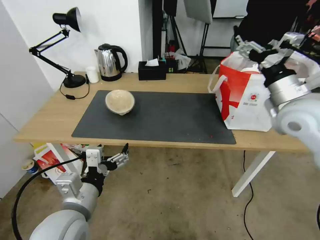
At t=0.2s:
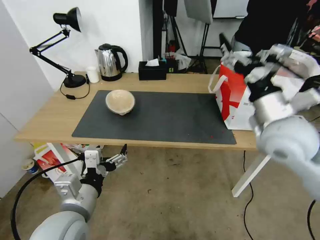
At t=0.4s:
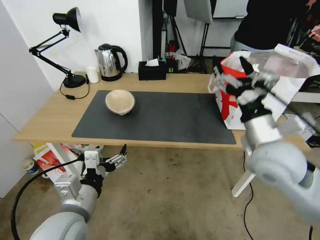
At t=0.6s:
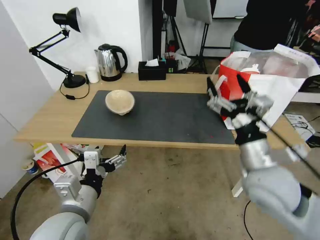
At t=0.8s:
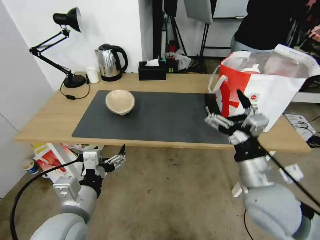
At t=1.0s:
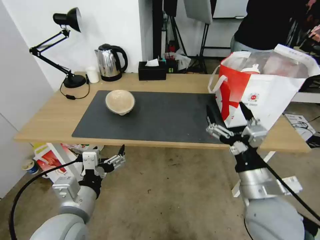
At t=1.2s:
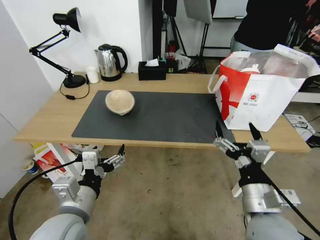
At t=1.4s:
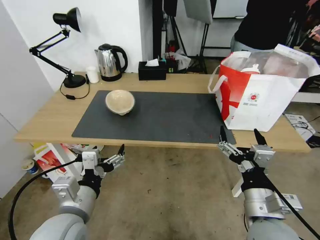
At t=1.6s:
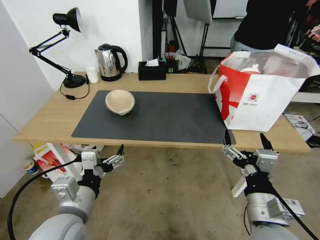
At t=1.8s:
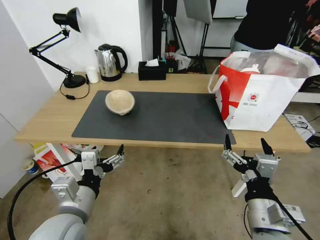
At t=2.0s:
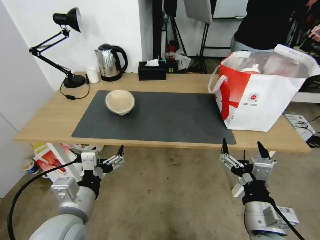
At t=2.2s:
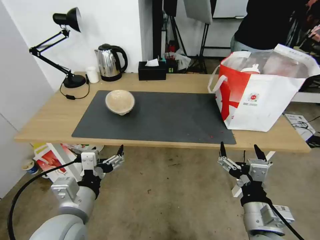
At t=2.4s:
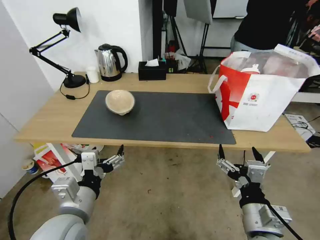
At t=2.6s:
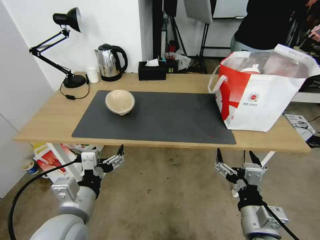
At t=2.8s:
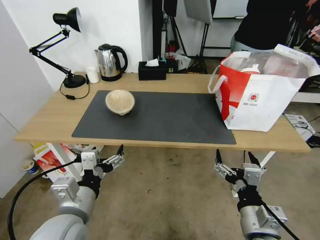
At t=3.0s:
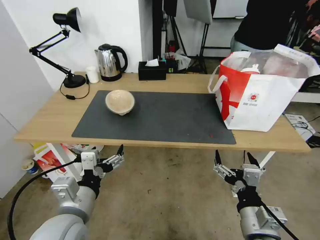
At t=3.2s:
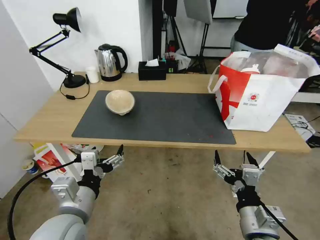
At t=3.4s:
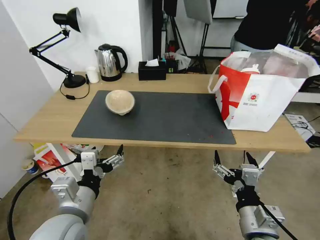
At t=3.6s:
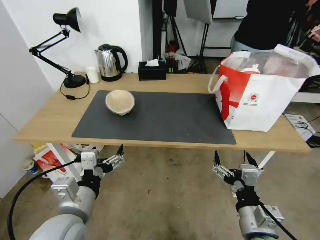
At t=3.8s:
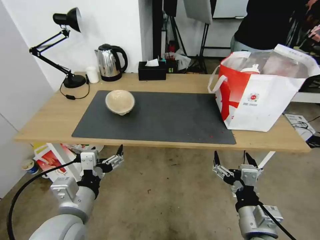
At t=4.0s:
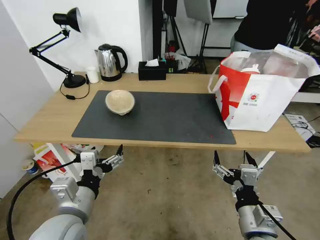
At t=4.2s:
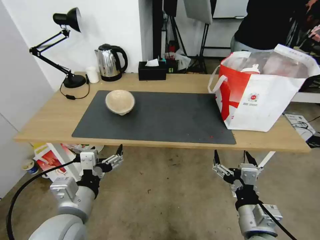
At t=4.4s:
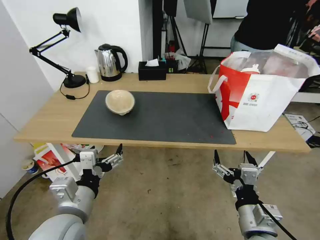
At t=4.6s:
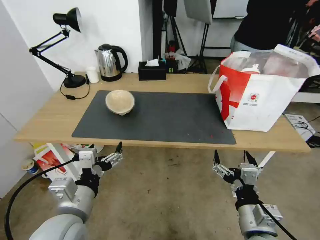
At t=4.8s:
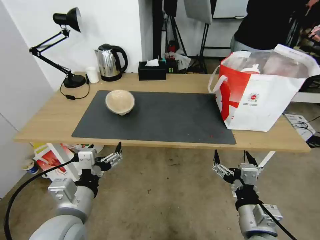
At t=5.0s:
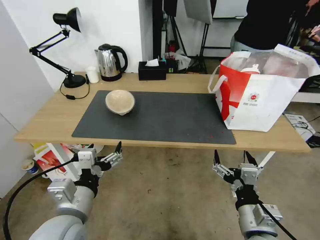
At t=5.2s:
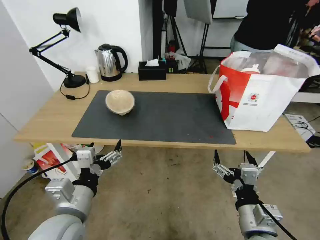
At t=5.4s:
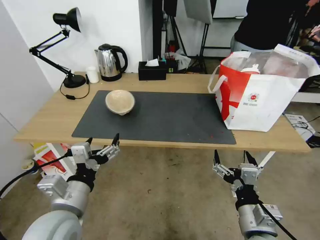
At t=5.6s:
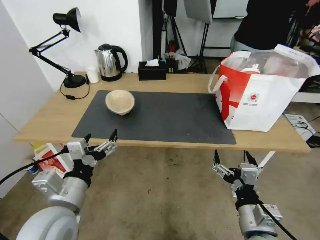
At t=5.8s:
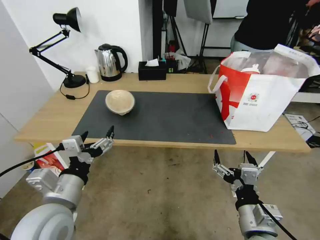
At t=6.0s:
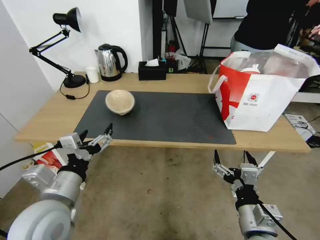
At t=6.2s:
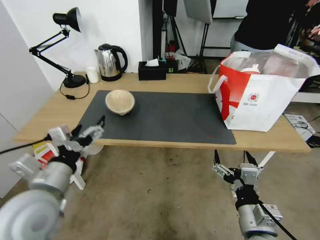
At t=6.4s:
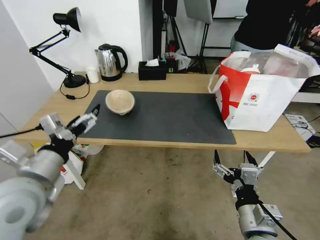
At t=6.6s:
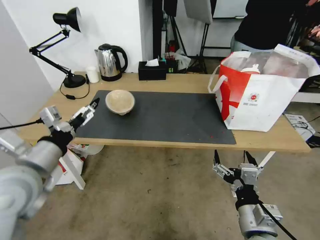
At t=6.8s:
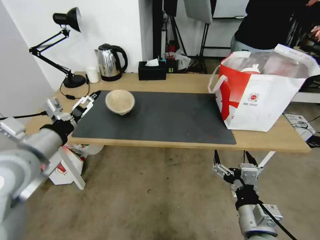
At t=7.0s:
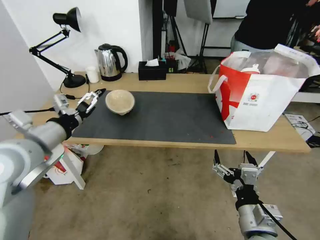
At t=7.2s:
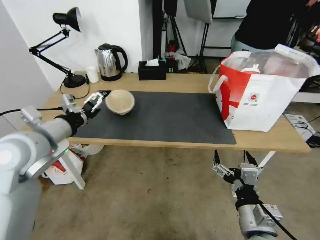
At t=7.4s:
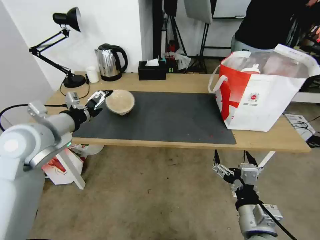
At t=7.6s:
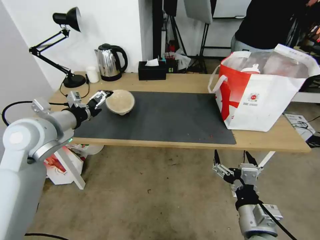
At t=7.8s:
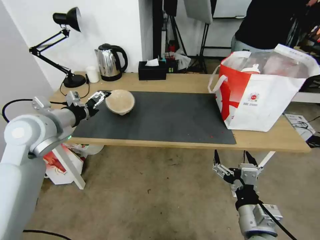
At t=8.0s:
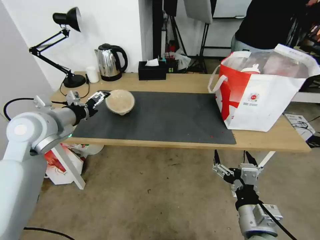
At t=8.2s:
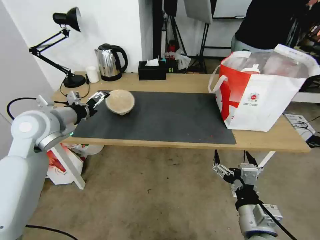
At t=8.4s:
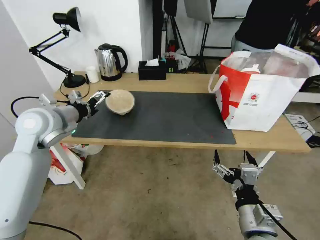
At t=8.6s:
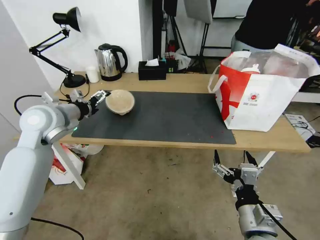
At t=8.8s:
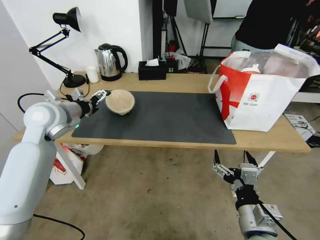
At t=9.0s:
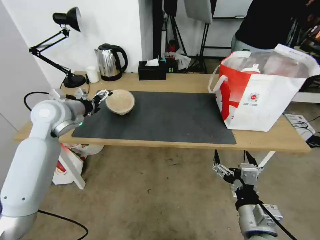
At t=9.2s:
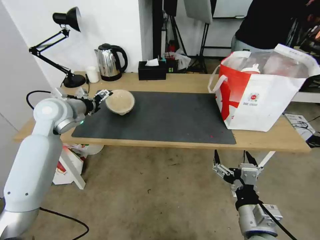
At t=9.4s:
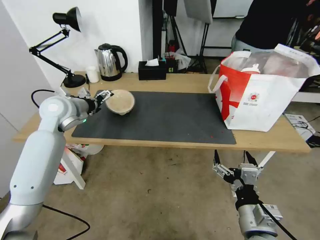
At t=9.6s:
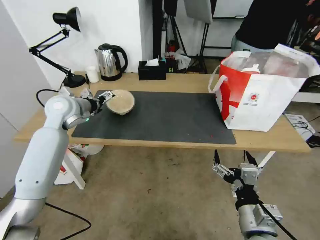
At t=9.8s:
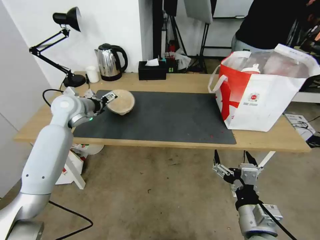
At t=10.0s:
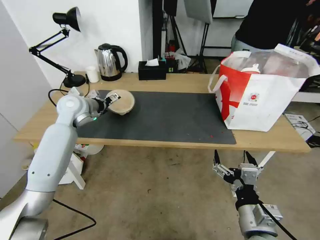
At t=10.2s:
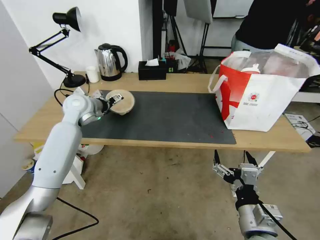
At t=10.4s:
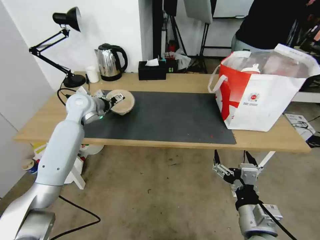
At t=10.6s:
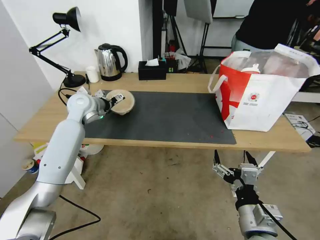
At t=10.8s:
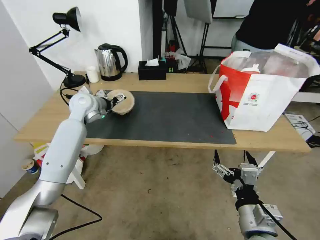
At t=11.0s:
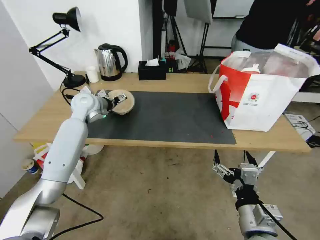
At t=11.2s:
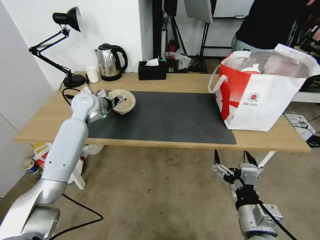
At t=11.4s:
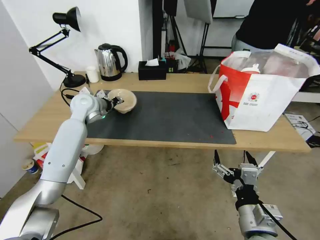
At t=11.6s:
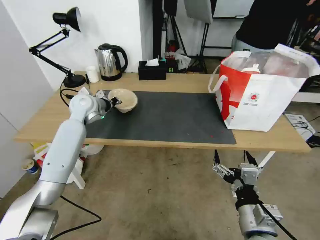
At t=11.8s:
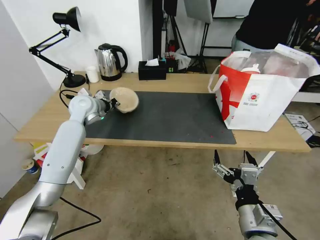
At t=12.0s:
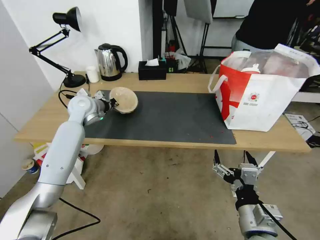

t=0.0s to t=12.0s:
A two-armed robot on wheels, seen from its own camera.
Task of the whole recording: Pick up the trash from the table and place it into the takeout bag.
t=0.0s to t=1.6s: The right gripper moves backward, downward and to the left, roughly 30 cm.
t=1.6s to t=3.0s: The grippers make only small movements.
t=3.0s to t=4.4s: The two grippers keep their place.
t=4.4s to t=6.0s: There are only small adjustments of the grippers.
t=6.0s to t=7.6s: The left gripper is displaced forward, upward and to the left by approximately 20 cm.
t=7.6s to t=9.0s: The left gripper is displaced forward by approximately 10 cm.
t=9.0s to t=10.4s: The left gripper is displaced forward by about 10 cm.
t=10.4s to t=12.0s: The left gripper closes.

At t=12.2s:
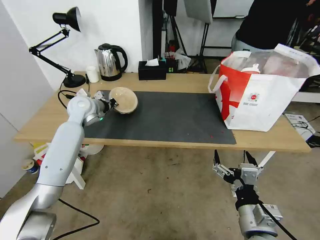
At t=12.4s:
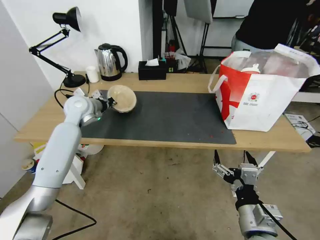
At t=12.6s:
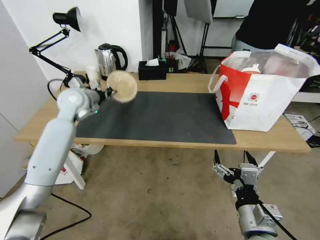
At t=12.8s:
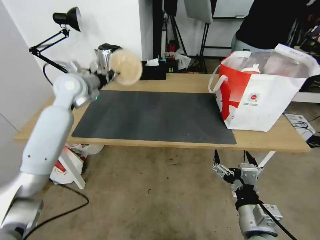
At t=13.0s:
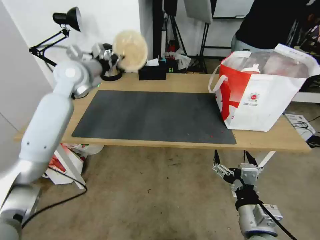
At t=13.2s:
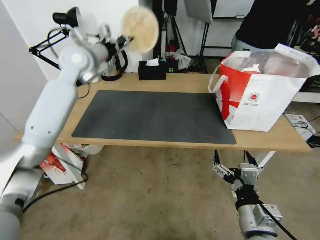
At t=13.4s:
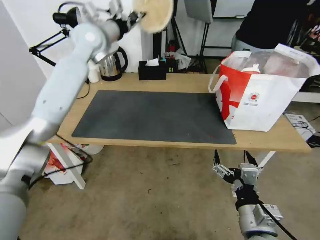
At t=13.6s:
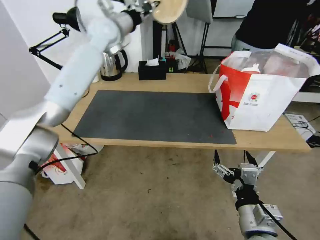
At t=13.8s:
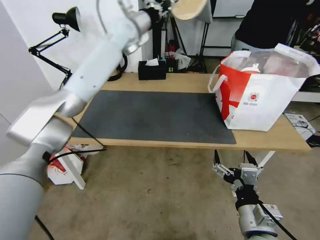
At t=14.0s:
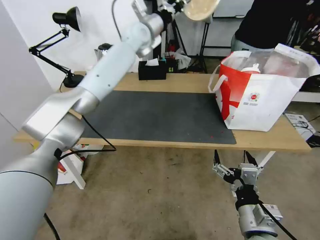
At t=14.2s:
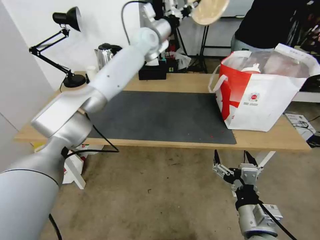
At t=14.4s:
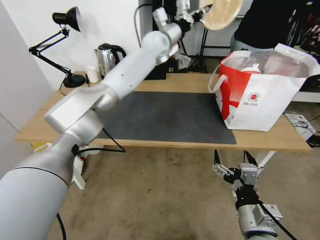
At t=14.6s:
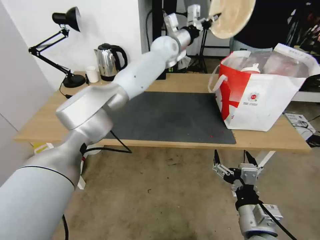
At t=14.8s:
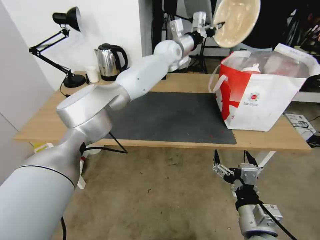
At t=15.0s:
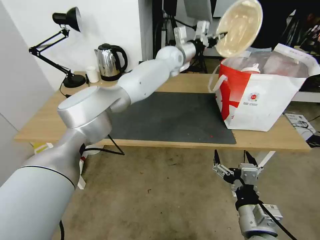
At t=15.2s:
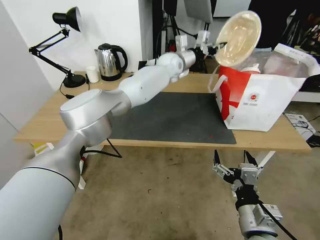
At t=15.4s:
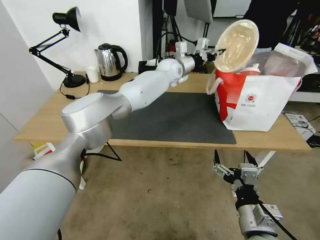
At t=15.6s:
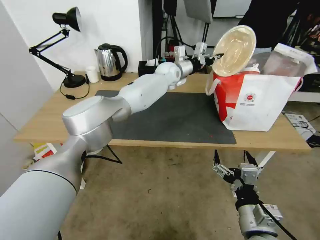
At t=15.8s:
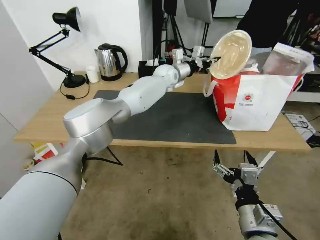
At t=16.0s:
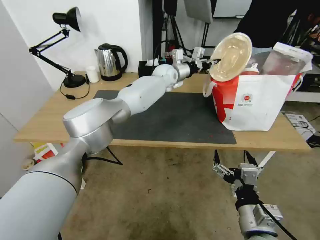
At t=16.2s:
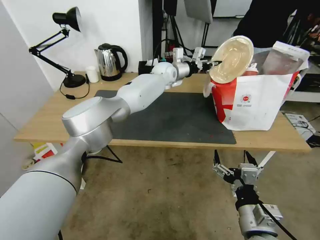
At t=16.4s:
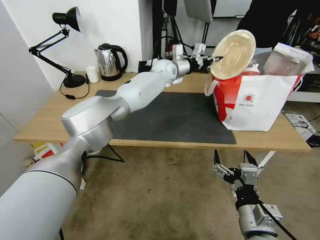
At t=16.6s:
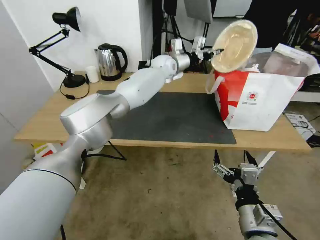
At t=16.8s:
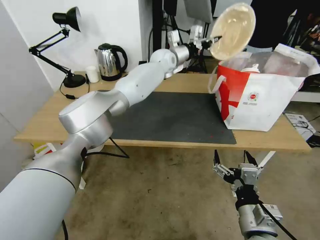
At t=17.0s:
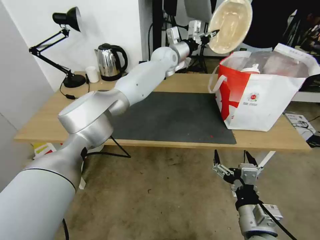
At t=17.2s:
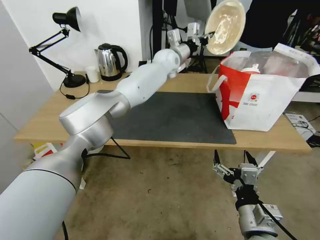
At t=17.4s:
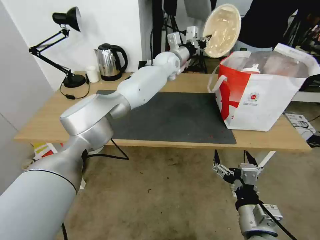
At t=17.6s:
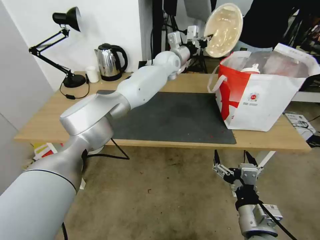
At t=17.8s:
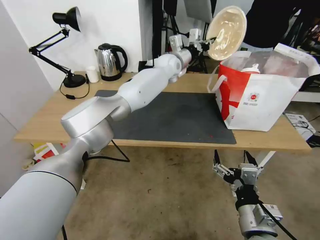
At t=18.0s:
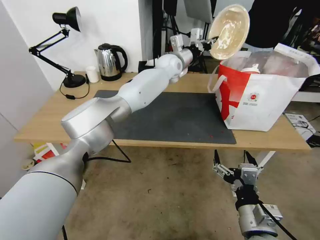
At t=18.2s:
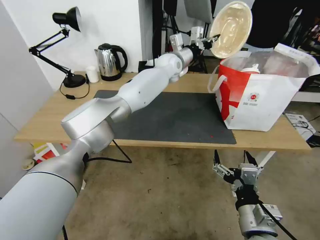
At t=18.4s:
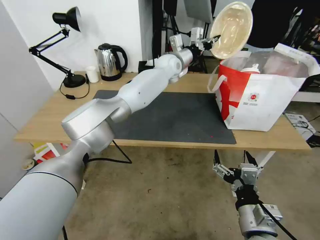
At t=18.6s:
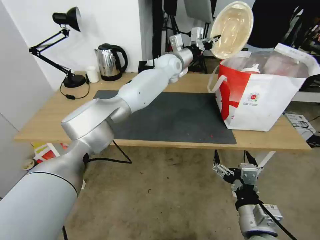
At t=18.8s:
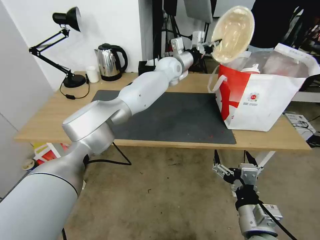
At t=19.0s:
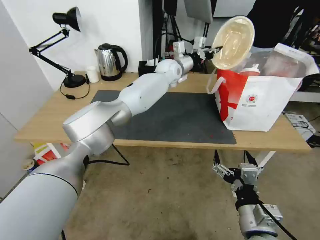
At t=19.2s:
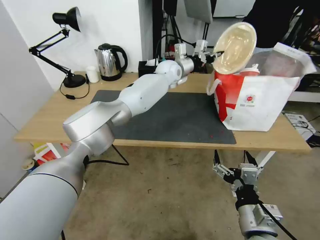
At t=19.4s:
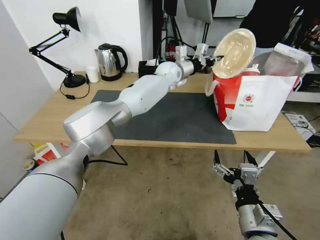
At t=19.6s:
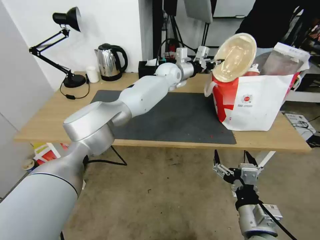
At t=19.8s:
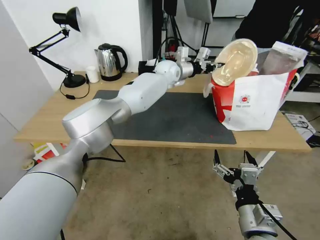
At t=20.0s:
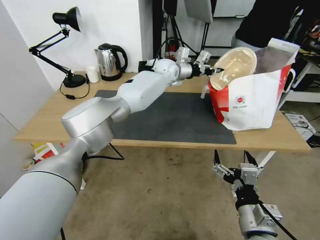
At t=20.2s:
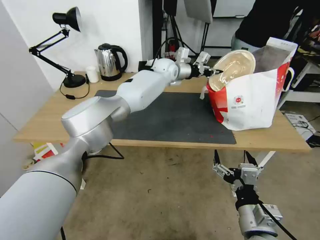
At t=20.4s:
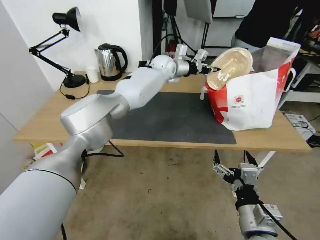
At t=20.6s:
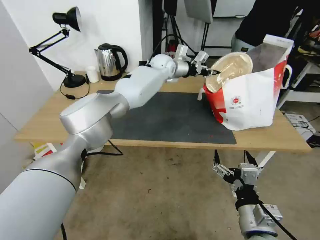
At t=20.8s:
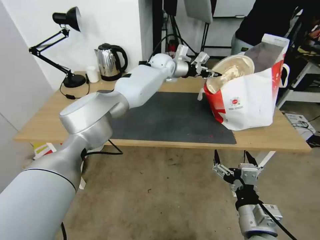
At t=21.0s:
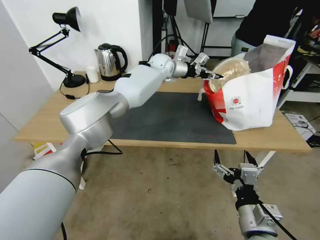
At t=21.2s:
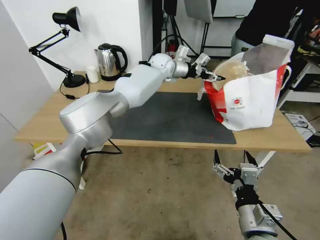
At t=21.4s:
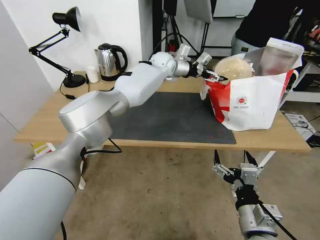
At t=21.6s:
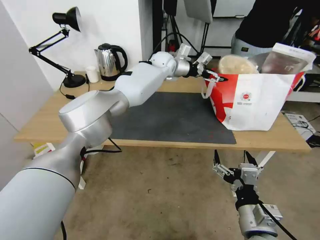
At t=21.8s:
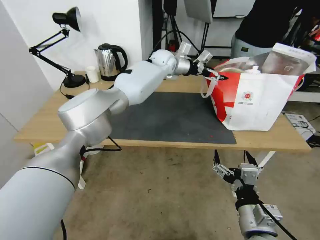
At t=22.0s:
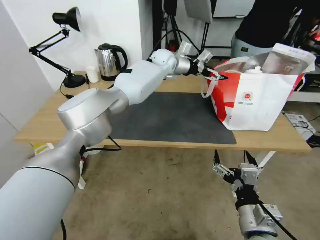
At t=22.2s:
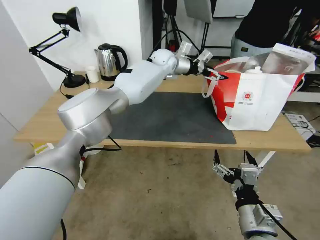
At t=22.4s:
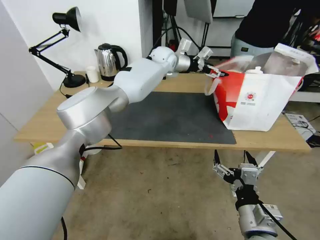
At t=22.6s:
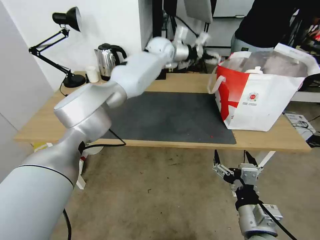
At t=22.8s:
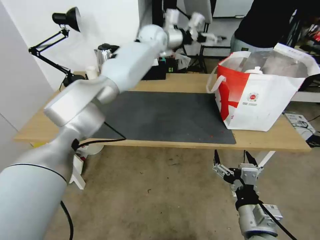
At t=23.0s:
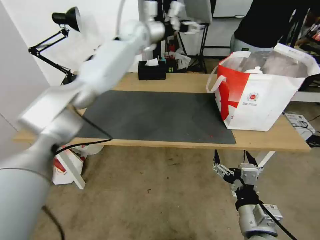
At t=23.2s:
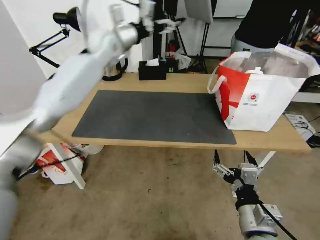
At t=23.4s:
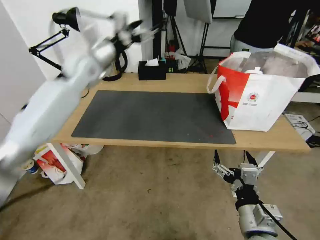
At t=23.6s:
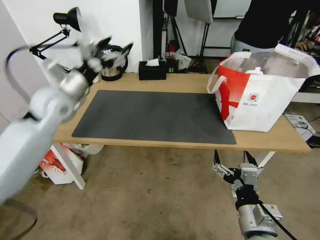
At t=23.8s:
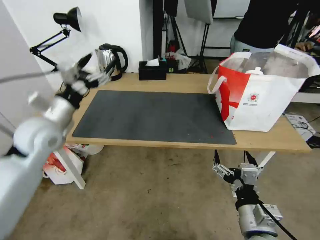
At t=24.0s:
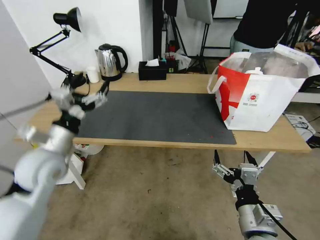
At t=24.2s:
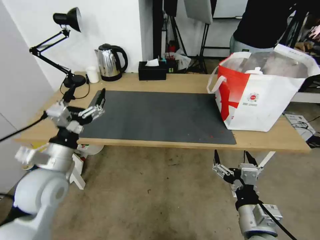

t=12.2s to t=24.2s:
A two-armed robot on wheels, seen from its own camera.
Task of the whole recording: Pick up the trash from the table and place it into the takeout bag.
t=12.2s to t=13.8s: The left gripper is displaced upward, to the right and forward by some 30 cm.
t=13.8s to t=15.2s: The left gripper is displaced to the right and downward by about 20 cm.
t=15.2s to t=18.2s: There are only small adjustments of the grippers.
t=19.8s to t=21.2s: The left gripper opens its fingers.
t=21.2s to t=22.6s: The left gripper travels upward by approximately 5 cm, and opens up.
t=22.6s to t=24.2s: The left gripper heads backward and to the left, covering roughly 50 cm.
